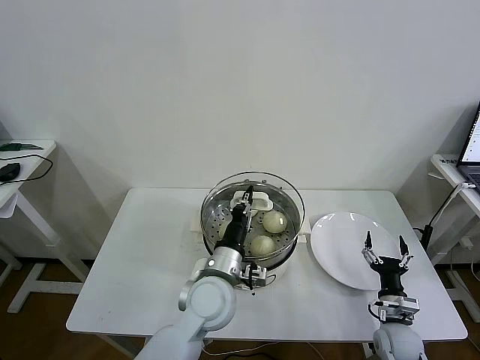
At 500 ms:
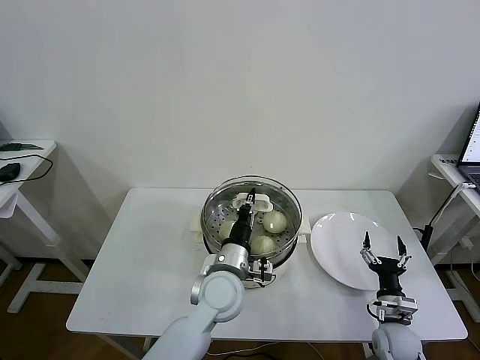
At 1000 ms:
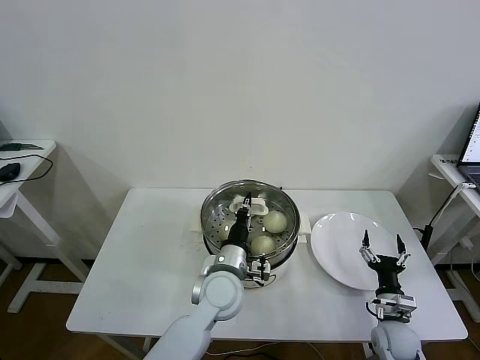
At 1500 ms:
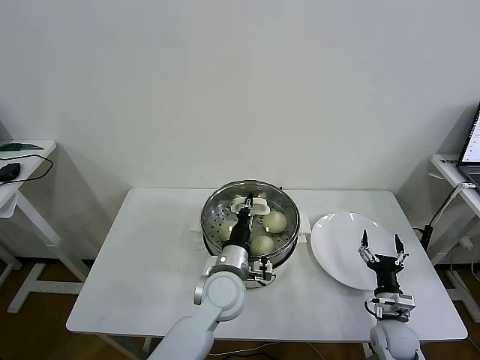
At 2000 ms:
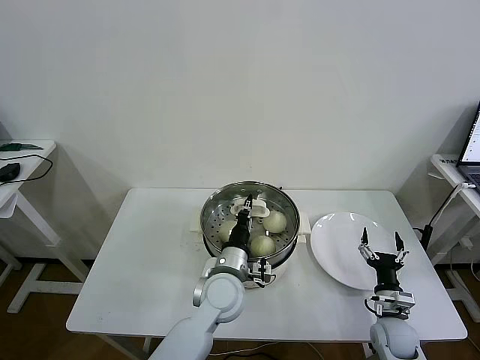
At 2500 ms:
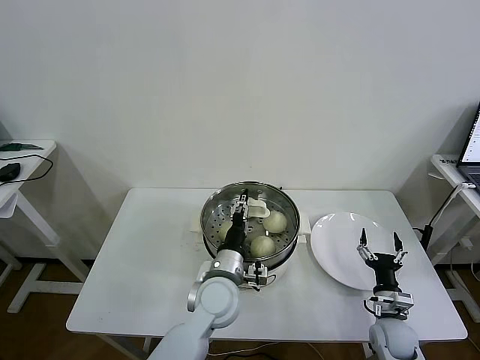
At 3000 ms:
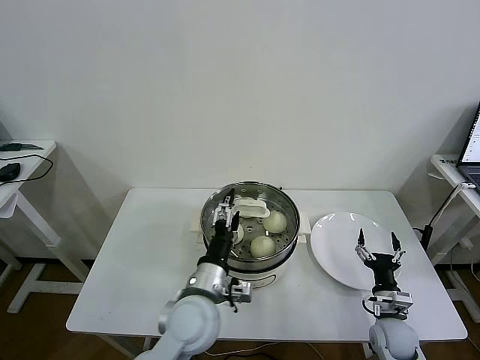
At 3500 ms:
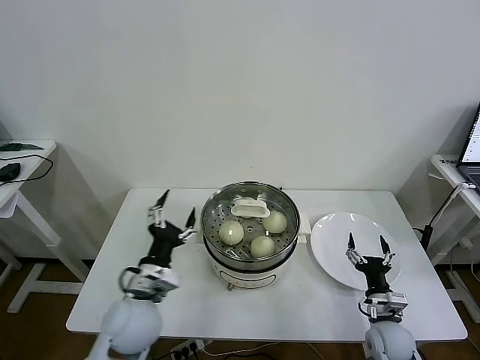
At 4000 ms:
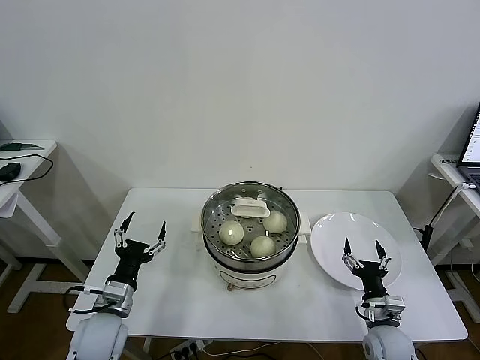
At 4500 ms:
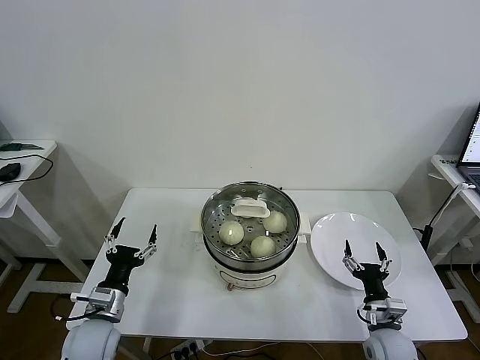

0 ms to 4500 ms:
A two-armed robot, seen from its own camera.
Task of the whole recording: take steamed baozi put them in steamer then cover it.
Step, 0 ms to 2000 ms: Place the pot lid on the steamer with left gripper.
0 ms to 2000 ms: The left gripper moves approximately 5 cm.
2000 ms to 4500 ms: The left gripper heads to the left, covering roughly 25 cm, and opens its fingers.
